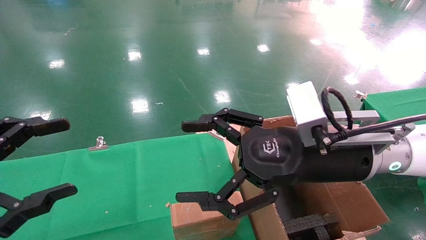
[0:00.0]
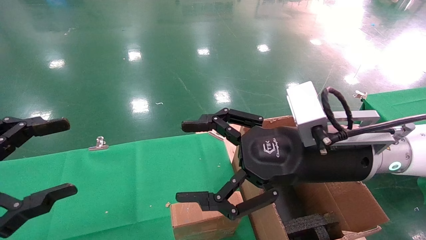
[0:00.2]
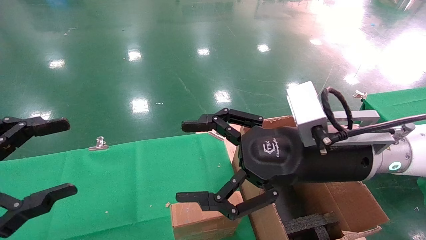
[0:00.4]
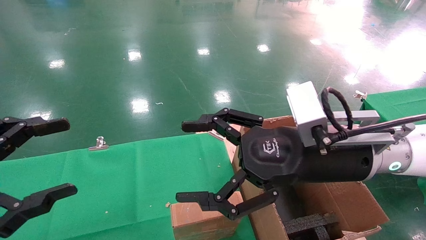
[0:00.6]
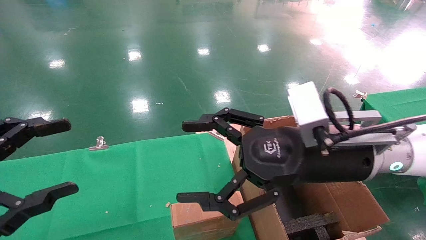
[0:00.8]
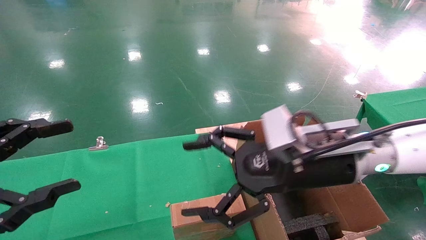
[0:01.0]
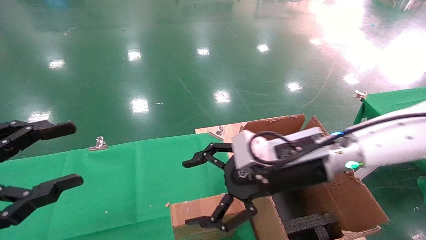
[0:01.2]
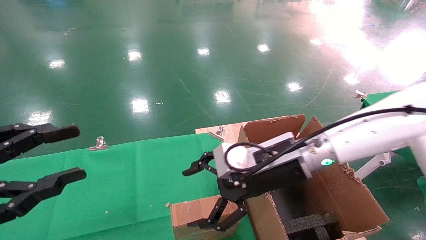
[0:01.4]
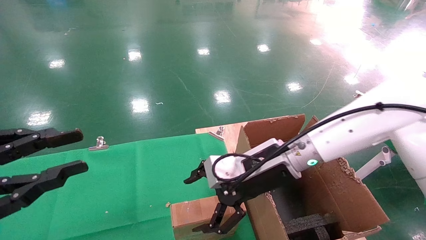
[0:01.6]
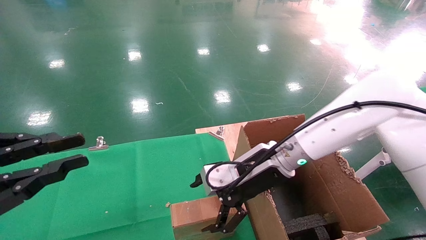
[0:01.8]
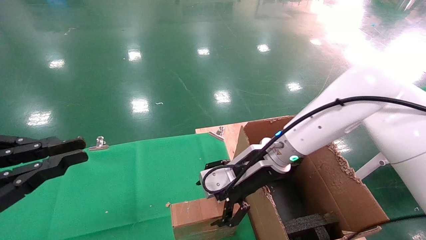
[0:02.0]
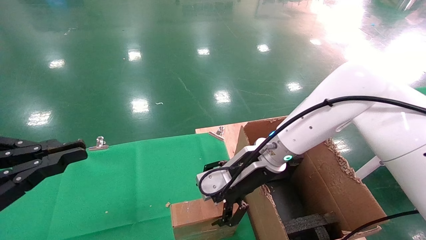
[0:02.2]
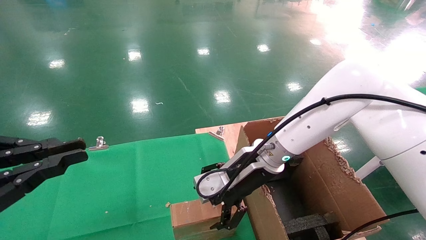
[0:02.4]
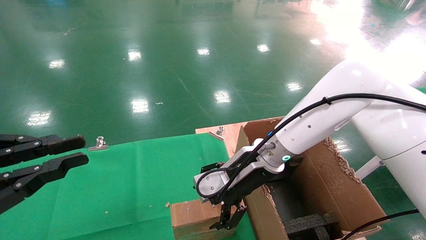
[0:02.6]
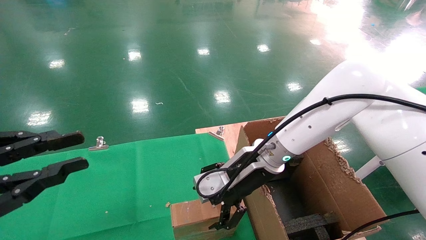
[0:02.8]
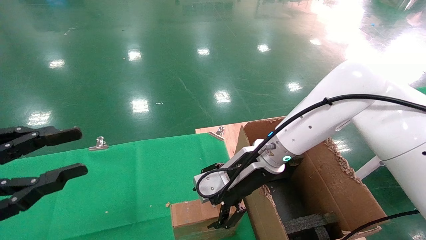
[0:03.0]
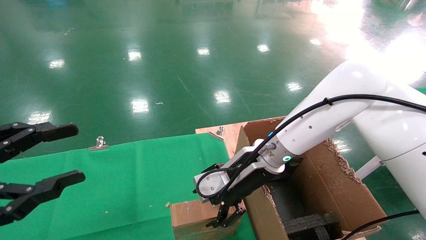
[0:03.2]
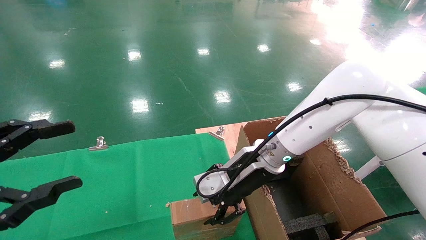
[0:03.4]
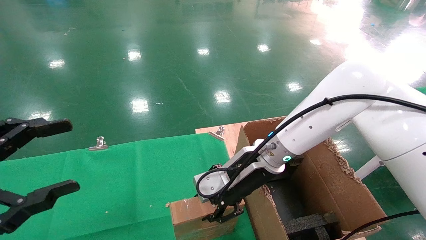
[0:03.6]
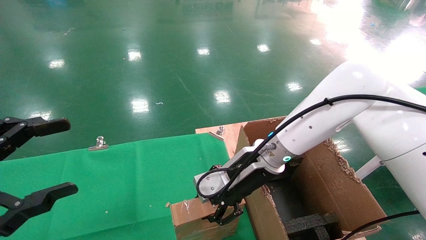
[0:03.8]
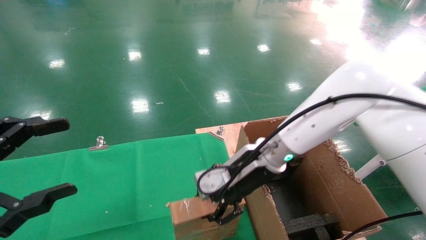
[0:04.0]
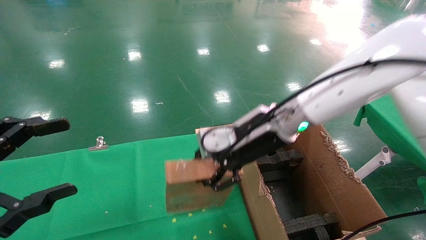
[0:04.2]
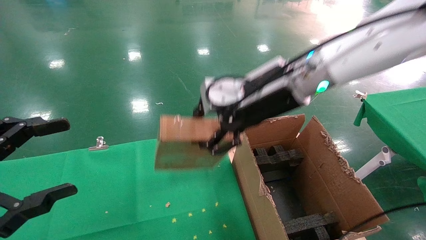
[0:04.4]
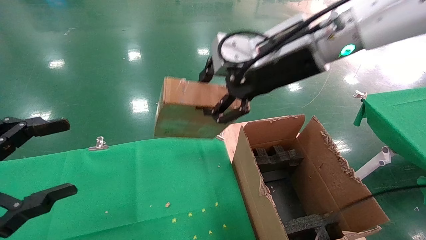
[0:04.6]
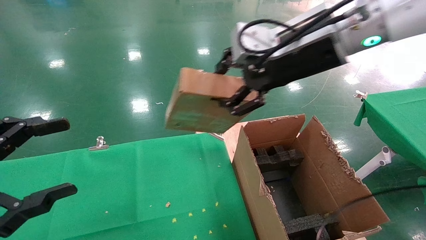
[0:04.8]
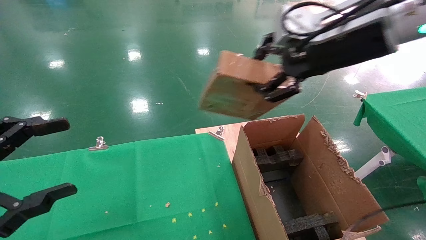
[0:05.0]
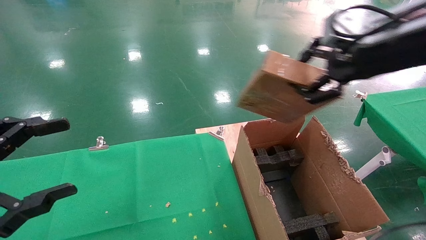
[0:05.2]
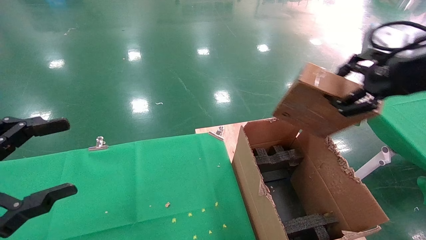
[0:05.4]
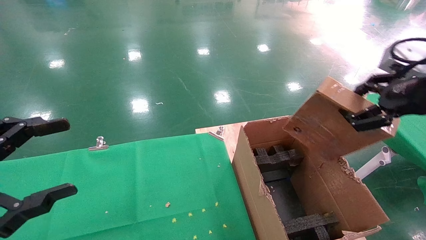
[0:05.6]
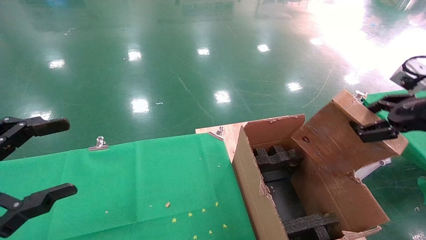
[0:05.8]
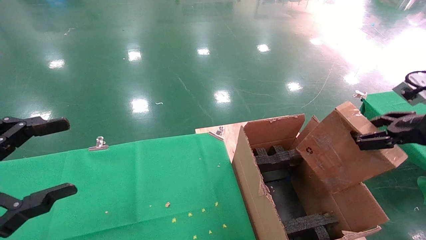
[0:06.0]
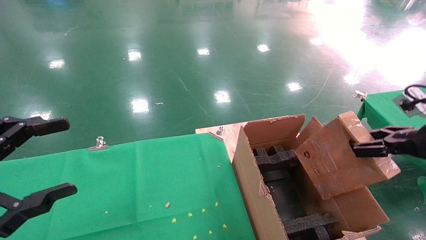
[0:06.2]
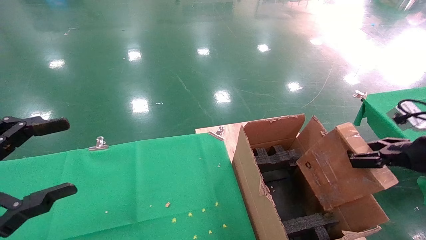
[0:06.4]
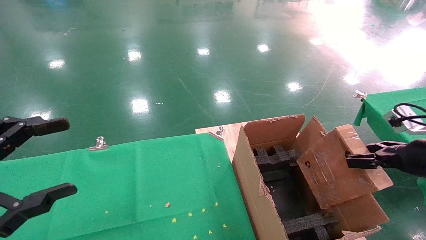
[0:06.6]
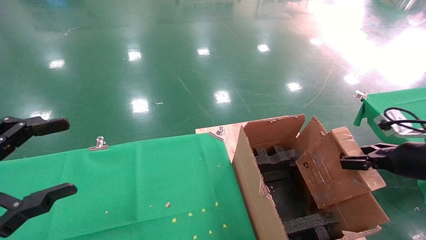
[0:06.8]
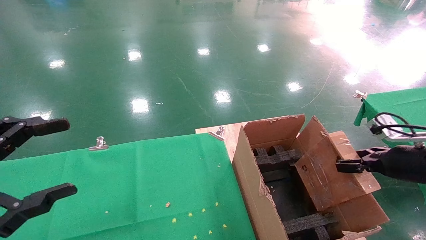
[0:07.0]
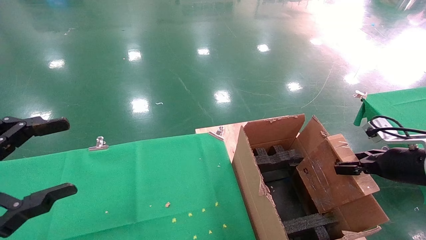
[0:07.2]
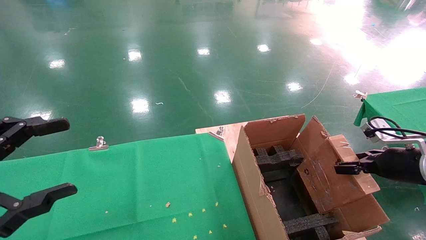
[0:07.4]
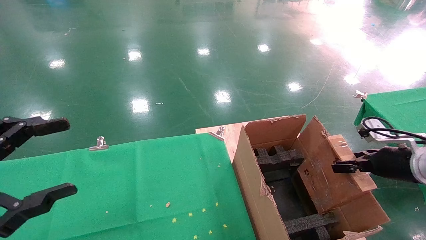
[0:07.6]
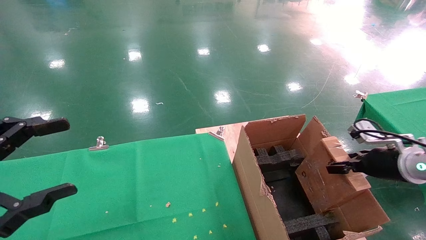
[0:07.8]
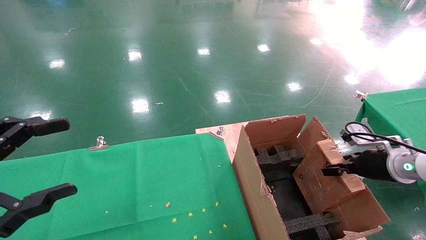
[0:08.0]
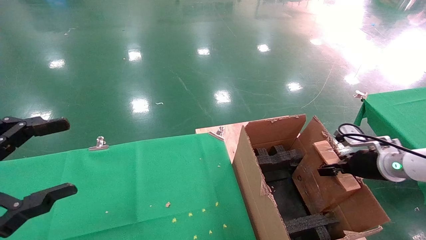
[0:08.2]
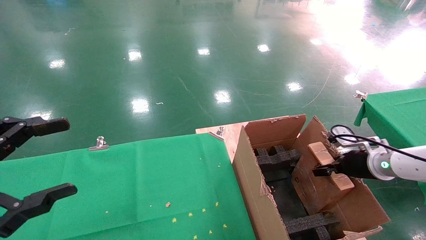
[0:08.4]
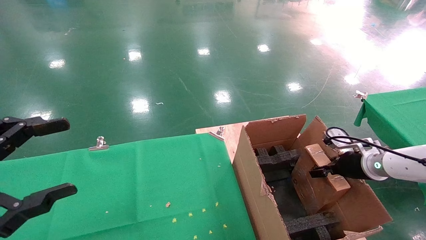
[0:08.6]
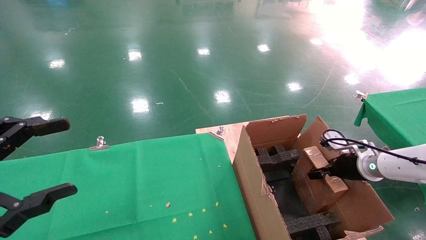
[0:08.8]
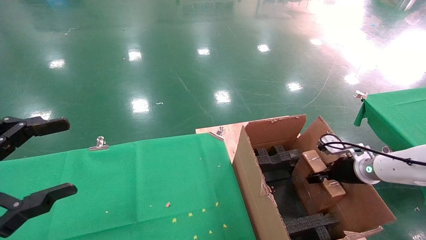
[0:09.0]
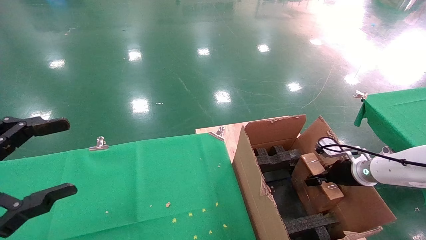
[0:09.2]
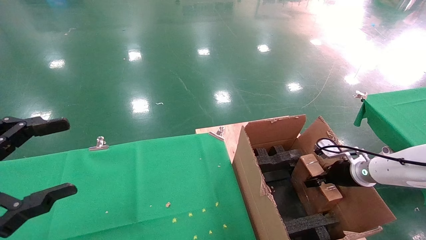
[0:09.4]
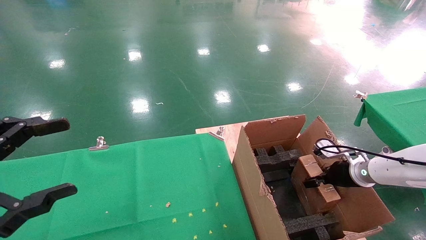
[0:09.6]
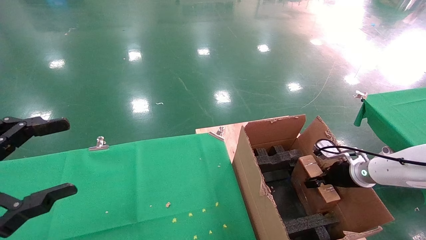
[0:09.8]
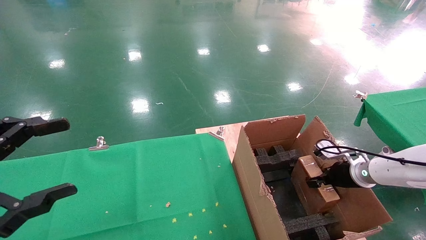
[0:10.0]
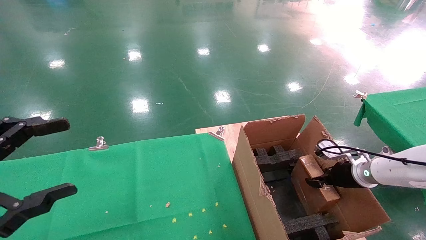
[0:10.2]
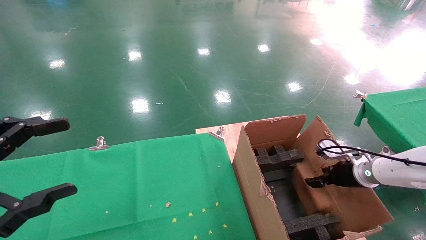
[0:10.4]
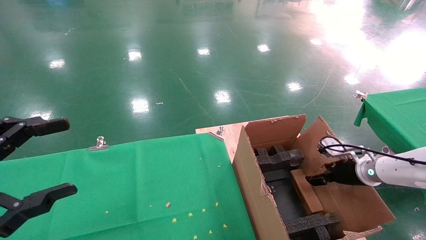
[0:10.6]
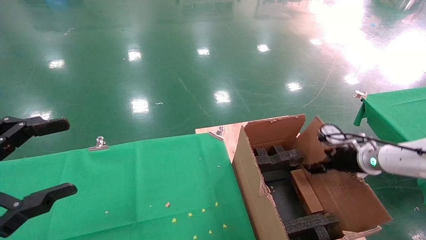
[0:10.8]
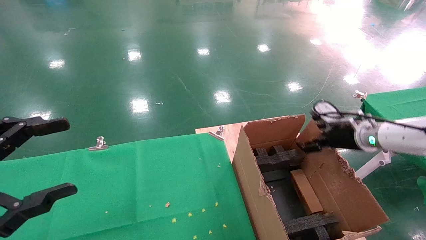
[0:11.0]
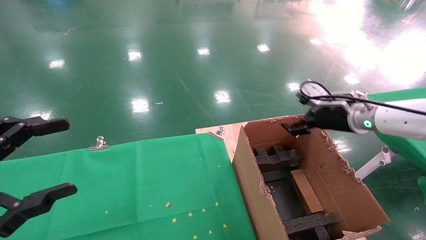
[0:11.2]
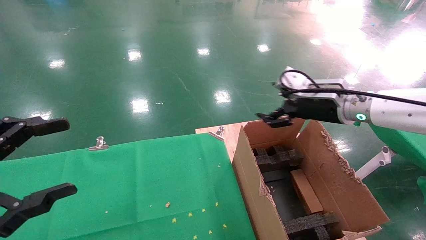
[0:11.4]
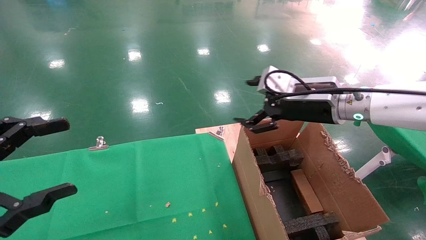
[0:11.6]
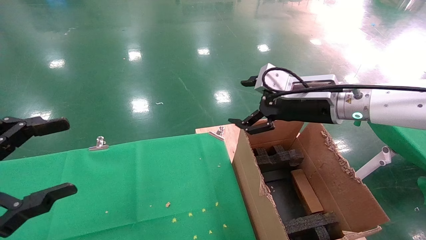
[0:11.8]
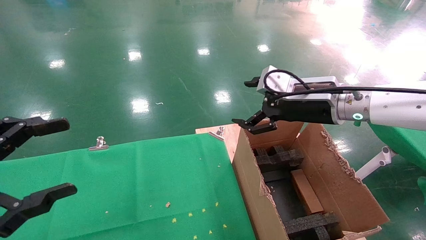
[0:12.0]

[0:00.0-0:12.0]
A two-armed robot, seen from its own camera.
Task of the whole recording: using a robotic arm to pick up a cardboard box and palace it the carton.
Step, 0:01.0 to 0:03.8: Pick up the mouse and the power cord paper box.
Step, 0:04.0 to 0:11.0: Place the mouse and the power cord paper box into the container.
0:00.0 to 0:01.6: The right gripper is displaced forward and downward by approximately 10 cm. The left gripper closes its fingers.
0:01.6 to 0:03.0: The grippers make only small movements.
0:03.0 to 0:04.4: The left gripper opens up. The right gripper shifts approximately 15 cm upward, and closes its fingers.
0:04.4 to 0:06.0: The right gripper travels to the right by roughly 30 cm.
0:06.0 to 0:07.6: The right gripper goes some 15 cm downward and forward.
0:07.6 to 0:09.0: The right gripper is displaced forward and downward by roughly 10 cm.
0:09.0 to 0:10.4: The right gripper opens up.
0:10.4 to 0:12.0: The right gripper goes some 30 cm upward and to the left, and opens.

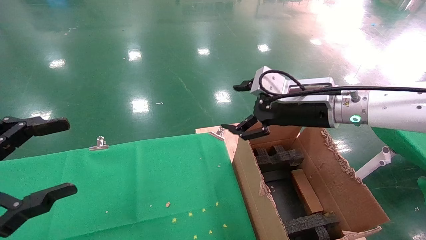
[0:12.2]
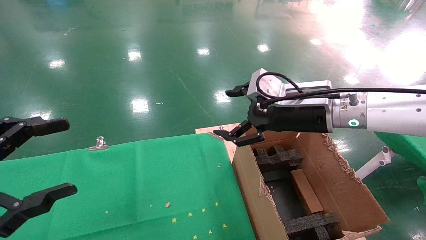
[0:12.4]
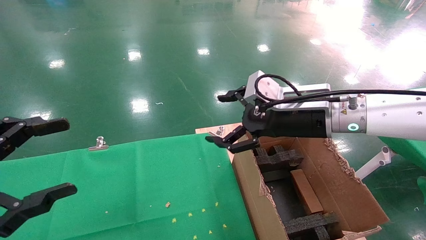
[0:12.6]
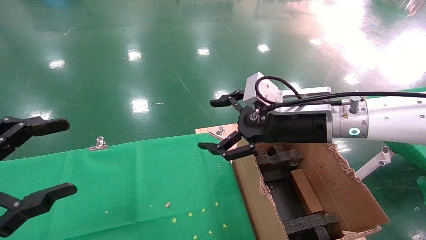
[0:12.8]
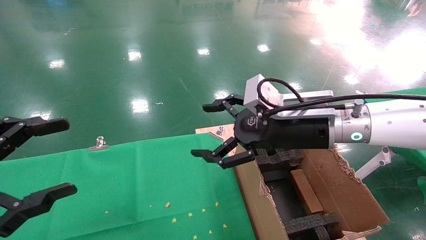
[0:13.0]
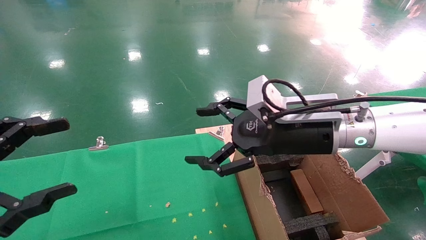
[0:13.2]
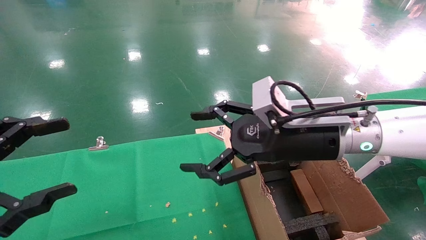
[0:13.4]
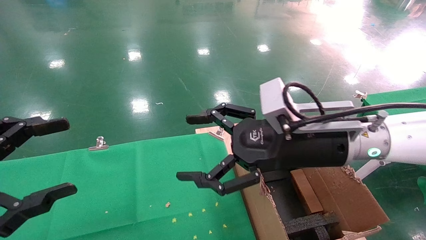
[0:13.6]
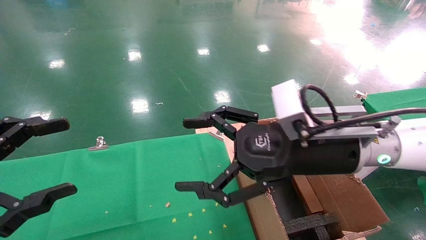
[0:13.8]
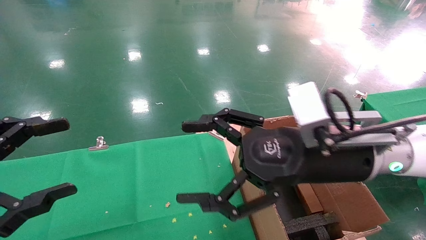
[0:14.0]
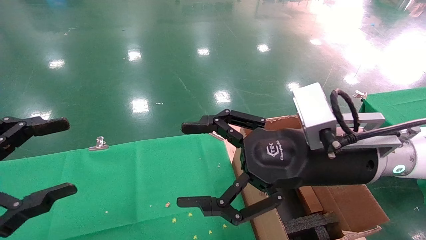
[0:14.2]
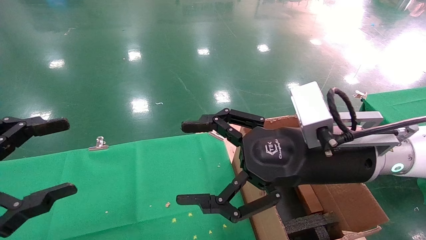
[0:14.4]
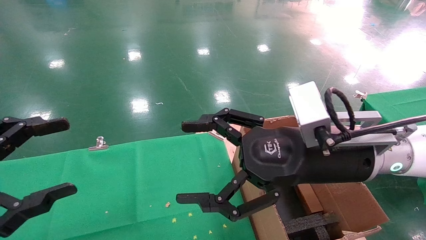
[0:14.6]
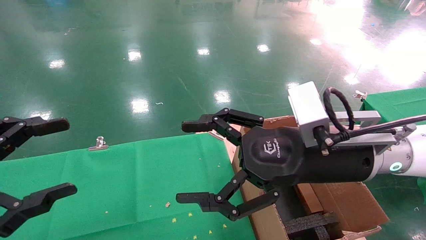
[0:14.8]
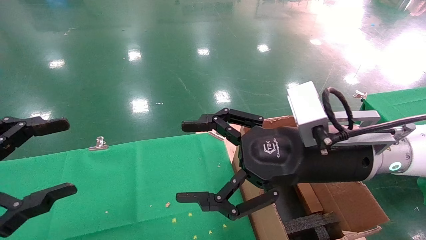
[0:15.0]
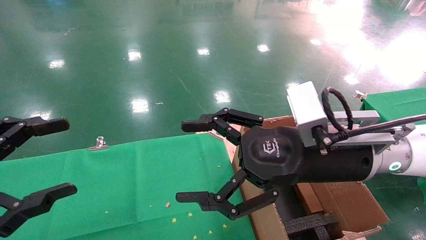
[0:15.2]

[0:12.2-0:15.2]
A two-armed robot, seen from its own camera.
Task of the whole recording: using a robotic arm to pick up a cardboard box and palace it the carton.
0:12.2 to 0:13.8: The right gripper heads backward, covering some 10 cm.
0:13.8 to 0:15.2: The grippers make only small movements.
